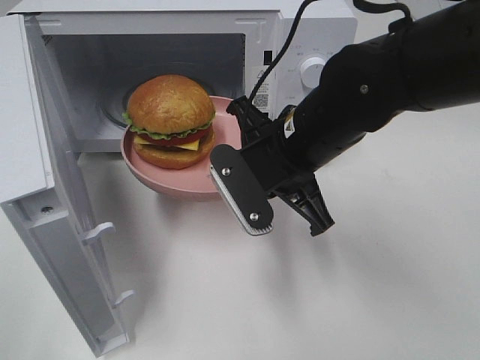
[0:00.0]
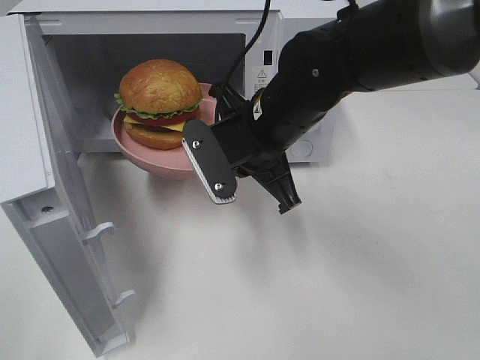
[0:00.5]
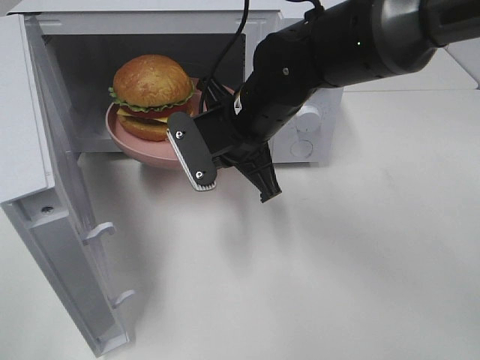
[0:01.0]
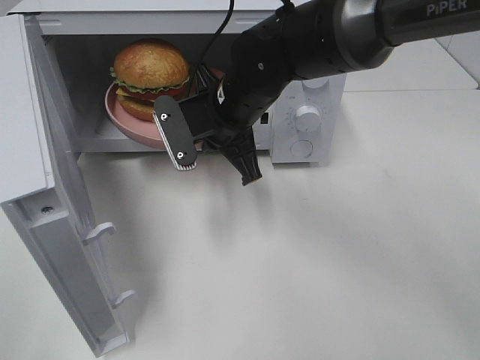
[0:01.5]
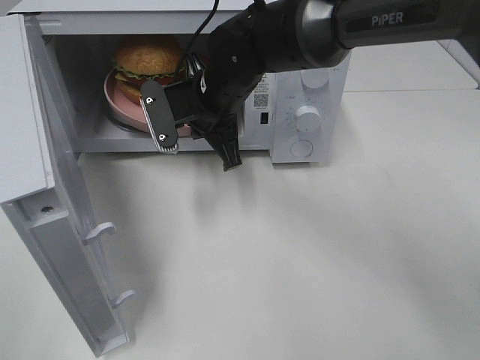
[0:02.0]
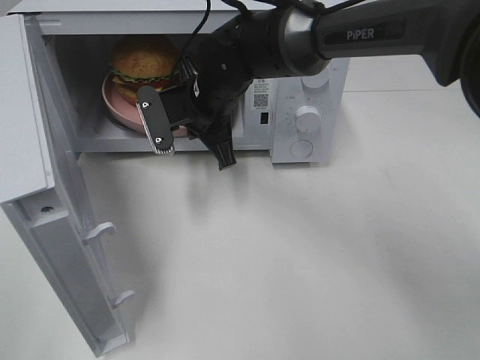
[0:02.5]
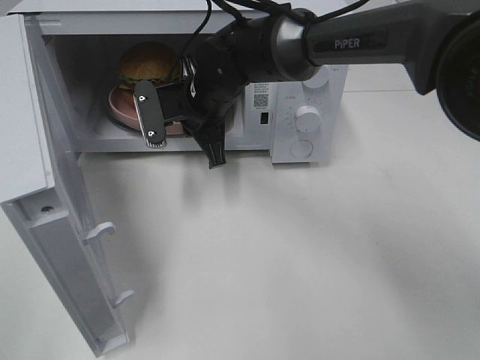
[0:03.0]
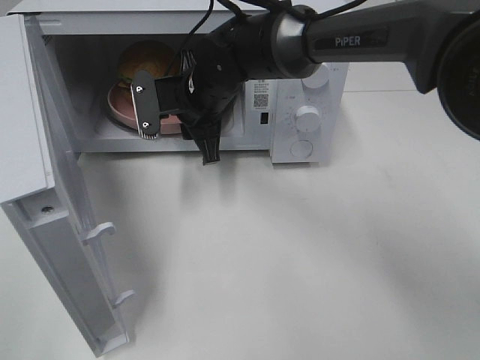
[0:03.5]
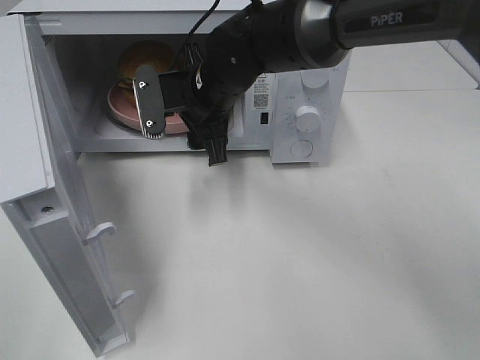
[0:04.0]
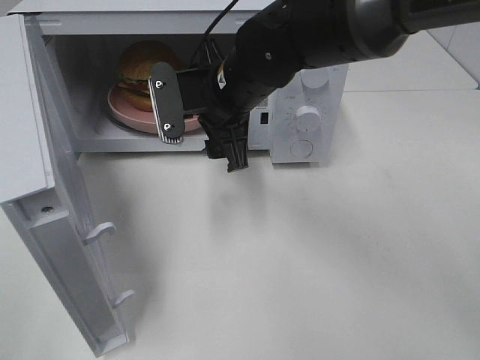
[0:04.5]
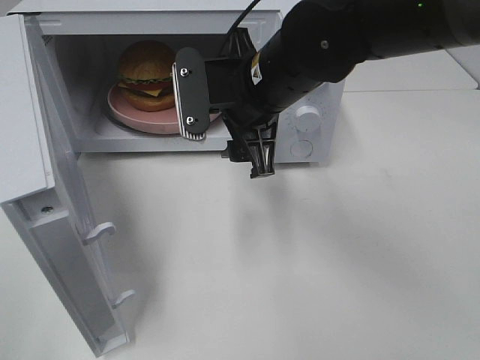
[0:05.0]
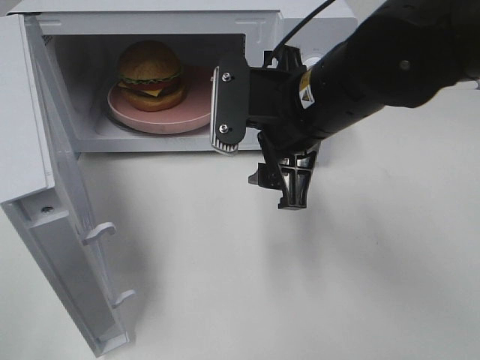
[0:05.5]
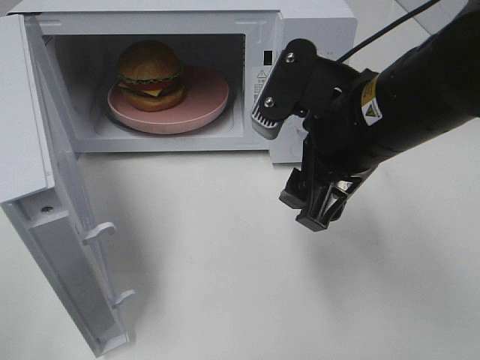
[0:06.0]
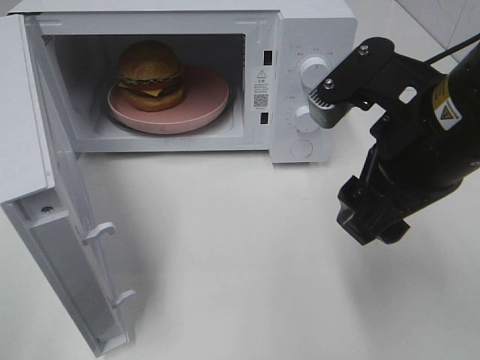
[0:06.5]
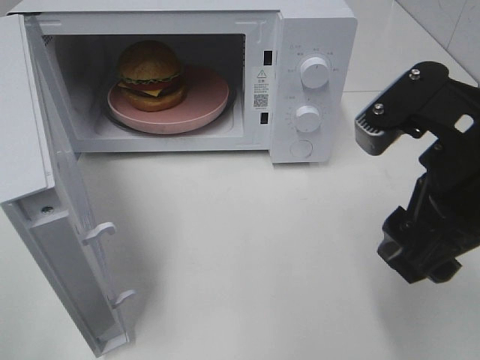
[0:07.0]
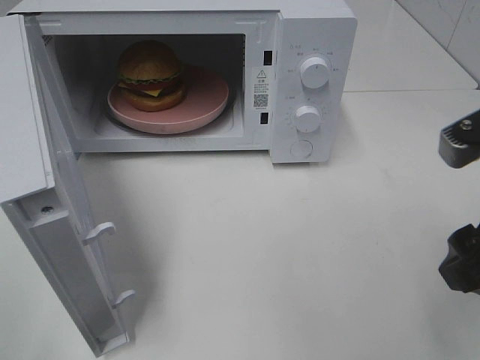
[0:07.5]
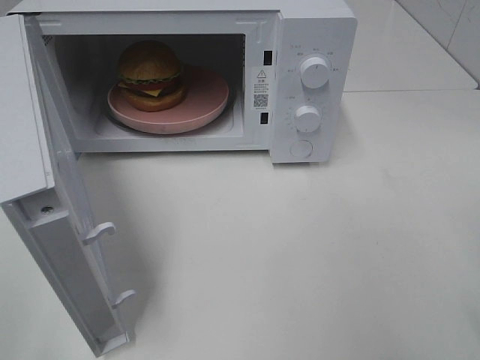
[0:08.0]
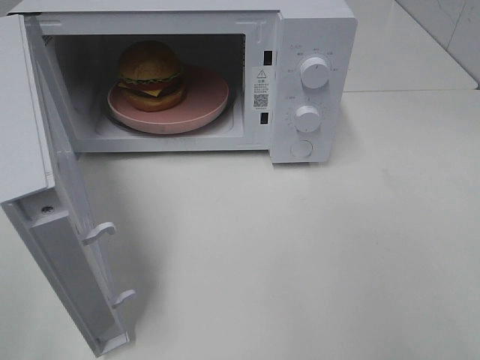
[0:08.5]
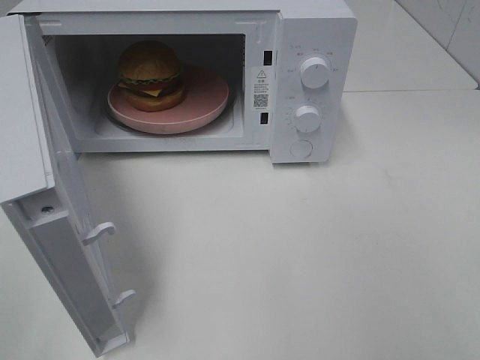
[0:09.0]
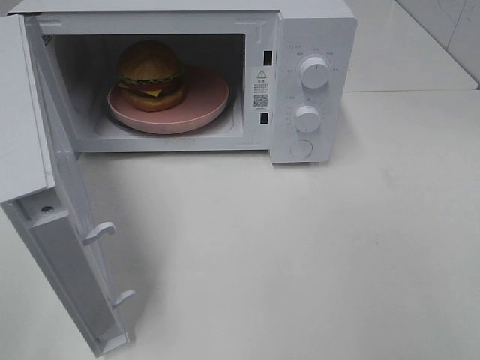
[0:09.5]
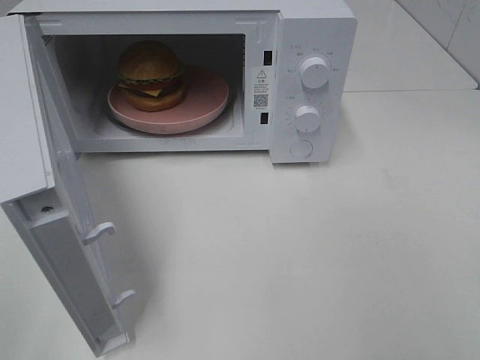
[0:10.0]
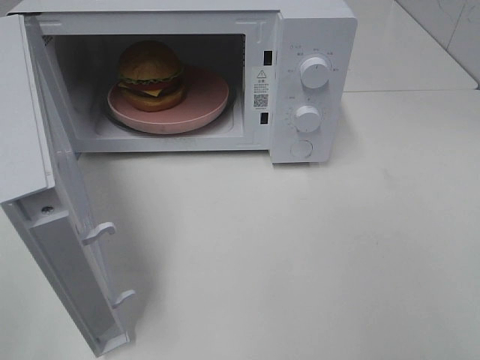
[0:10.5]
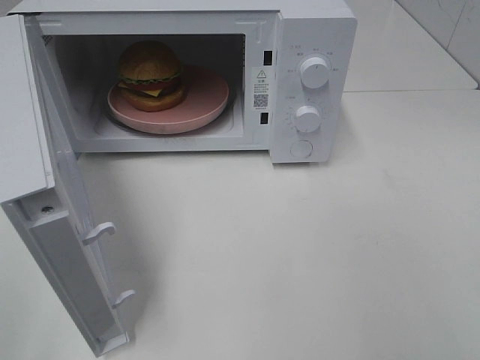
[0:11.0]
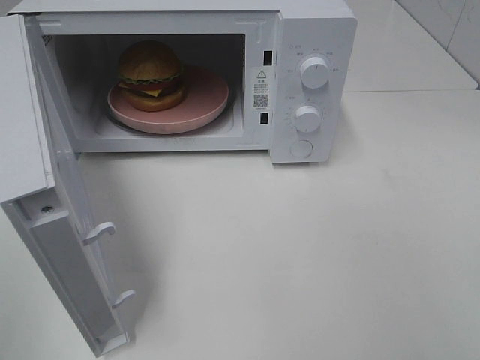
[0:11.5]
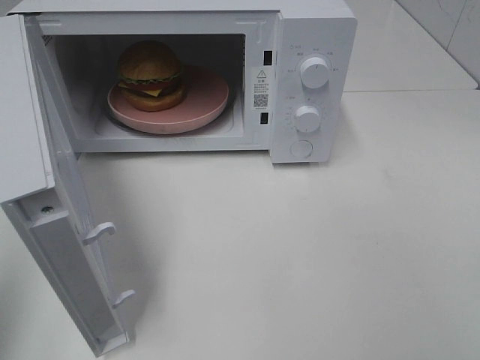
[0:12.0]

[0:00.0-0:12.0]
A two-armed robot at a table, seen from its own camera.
Task of the whole recording: Heat the burger.
Step, 0:00.0 to 0:03.5: Right hand: place the plate in the microwave.
0:00.0 to 0:02.0: The right gripper is displaced forward and to the left by roughly 15 cm.
0:02.0 to 0:04.0: The right gripper opens its fingers.
0:04.0 to 0:06.0: The right gripper heads backward, to the right and upward, covering about 20 cm.
0:06.0 to 0:08.0: The right gripper shifts about 20 cm to the right and backward.

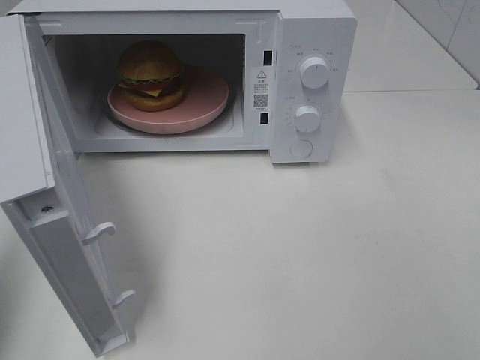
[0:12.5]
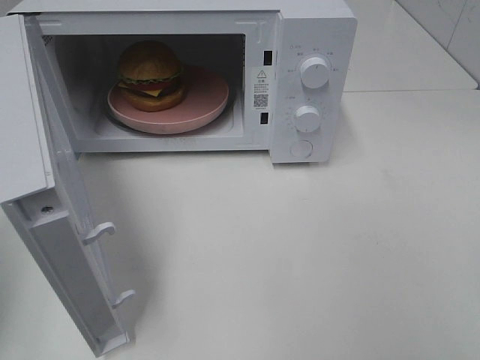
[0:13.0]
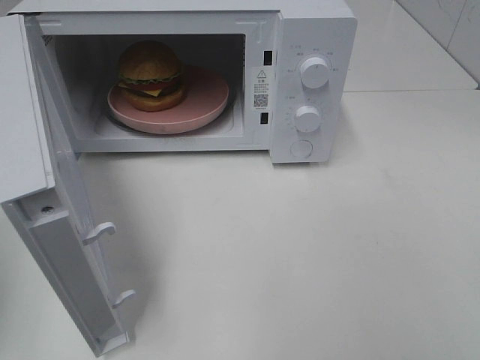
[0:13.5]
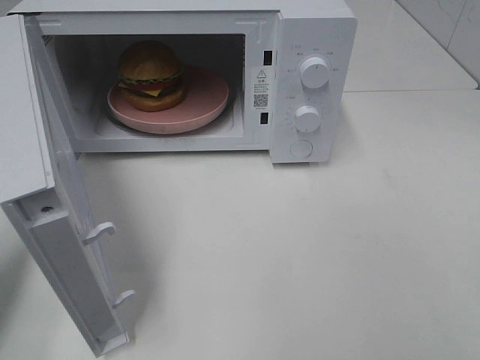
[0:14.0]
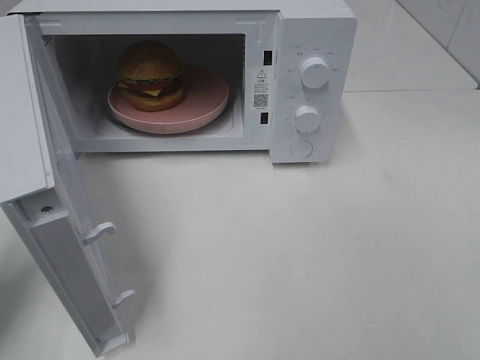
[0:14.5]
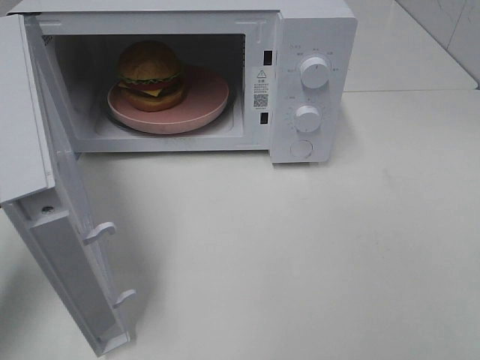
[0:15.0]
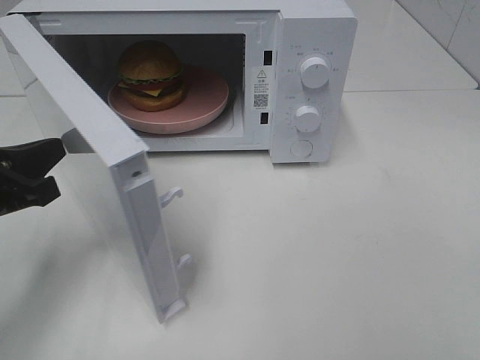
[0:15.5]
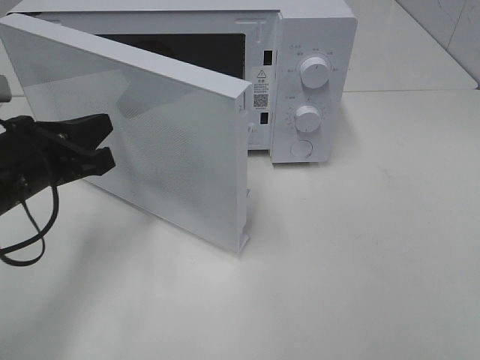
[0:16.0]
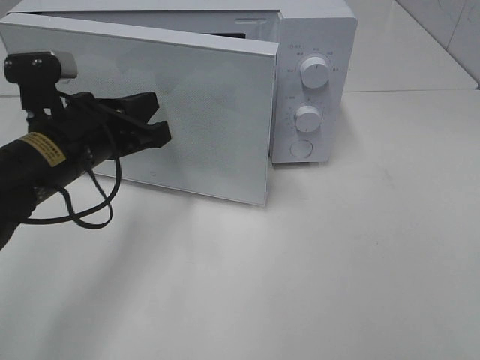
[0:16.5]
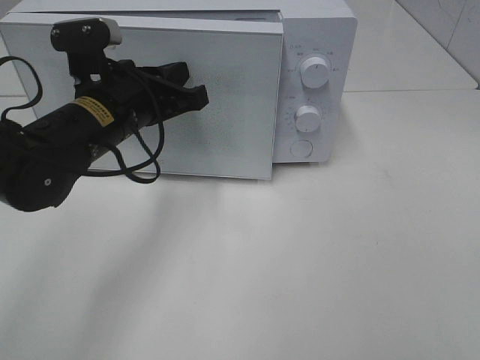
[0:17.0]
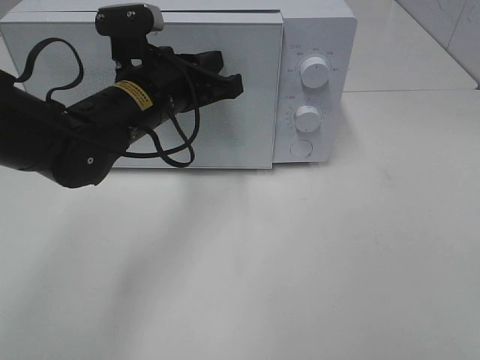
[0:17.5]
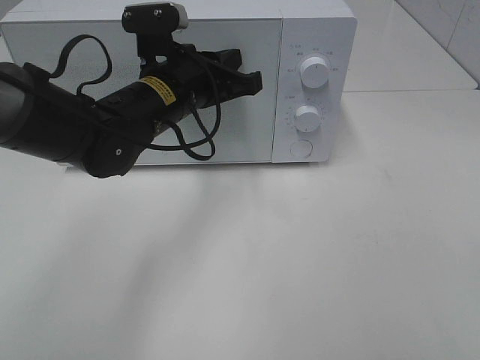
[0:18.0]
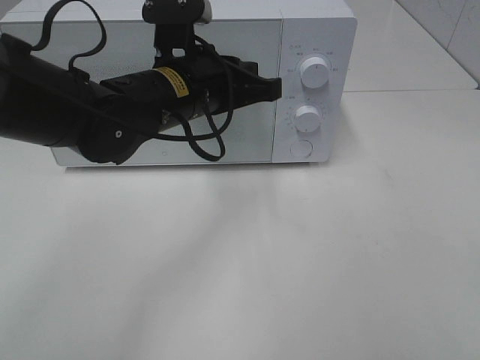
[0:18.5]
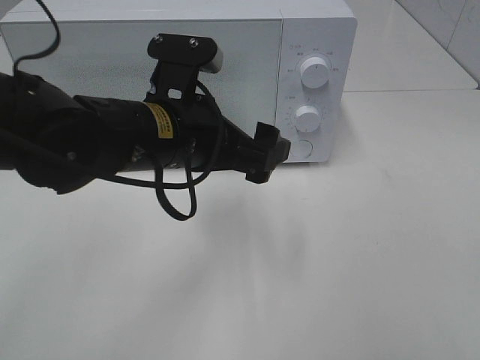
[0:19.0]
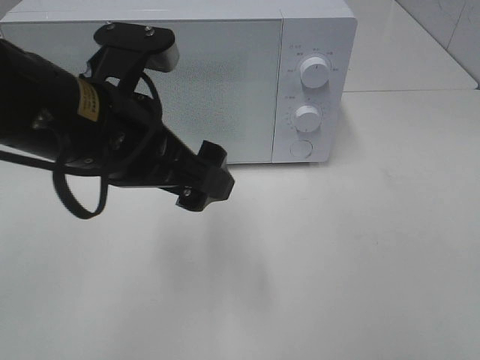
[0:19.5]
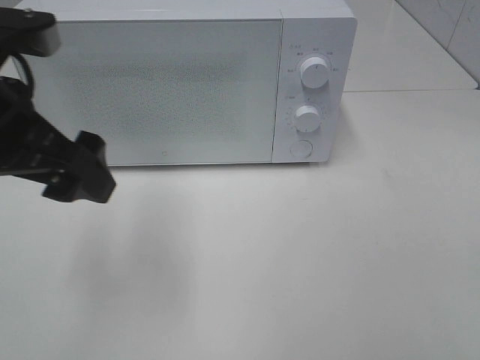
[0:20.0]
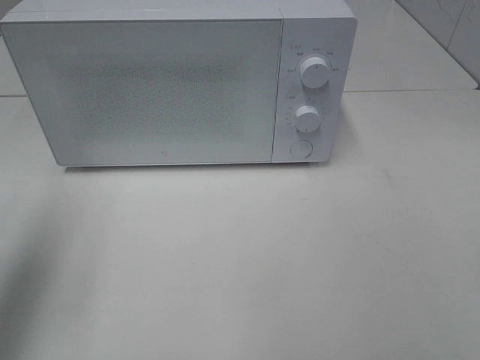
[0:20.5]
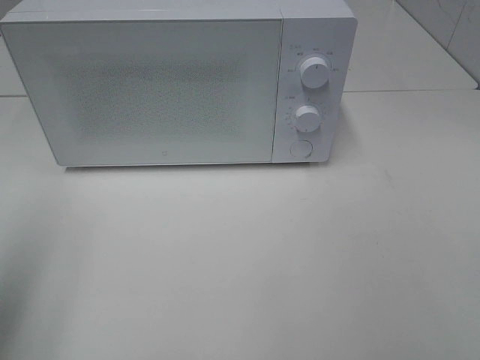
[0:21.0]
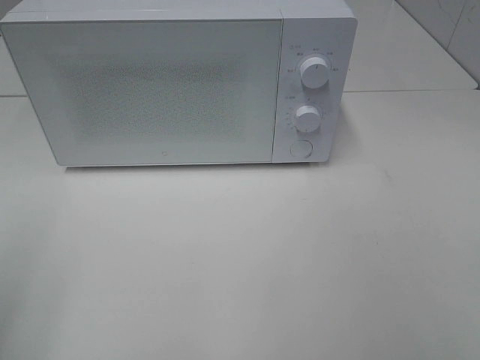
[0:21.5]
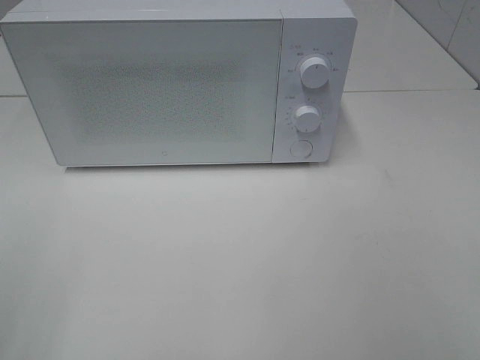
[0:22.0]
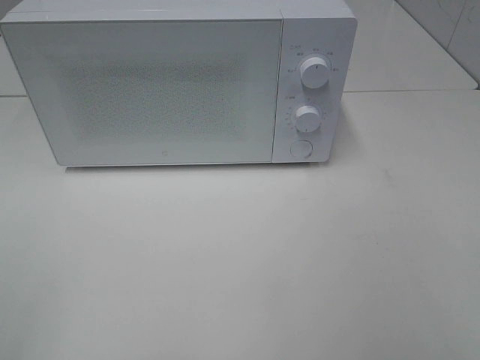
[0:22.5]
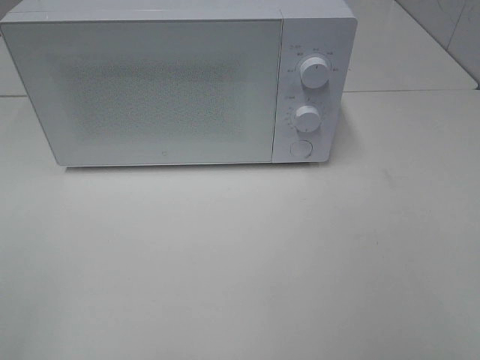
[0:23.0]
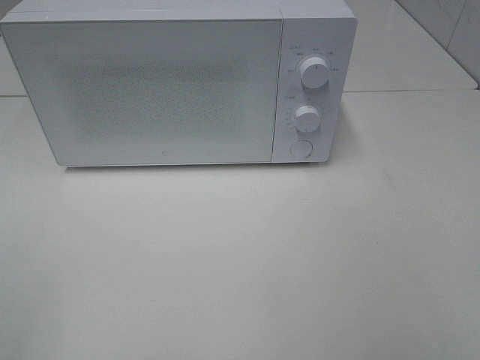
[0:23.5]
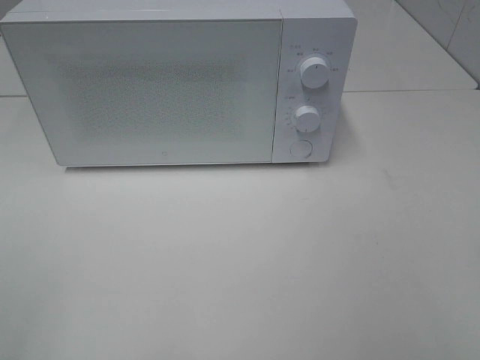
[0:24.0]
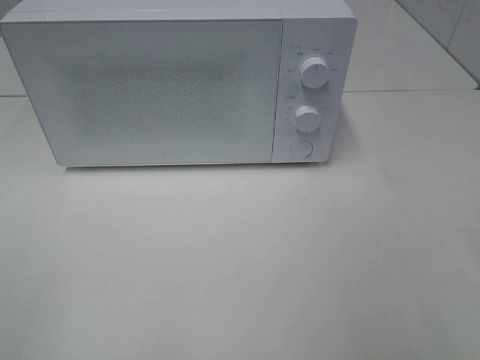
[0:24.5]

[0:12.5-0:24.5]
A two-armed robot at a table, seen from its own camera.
Task of the whole recording: Heat the burger.
Step, 0:12.5 to 0:18.5: Left hand: close the microwave door.
0:12.5 to 0:14.5: The left gripper travels downward and forward by approximately 15 cm.
0:14.5 to 0:16.5: The left gripper travels to the right and forward by some 15 cm.
0:16.5 to 0:18.5: The left gripper is displaced to the right by some 10 cm.
0:18.5 to 0:20.5: The left gripper heads to the left, backward and upward, covering about 30 cm, and opens.
0:20.5 to 0:22.5: The left gripper is displaced backward by roughly 20 cm.

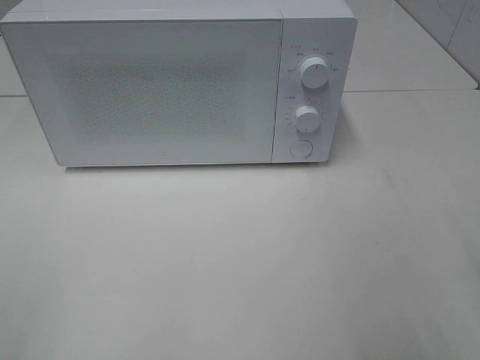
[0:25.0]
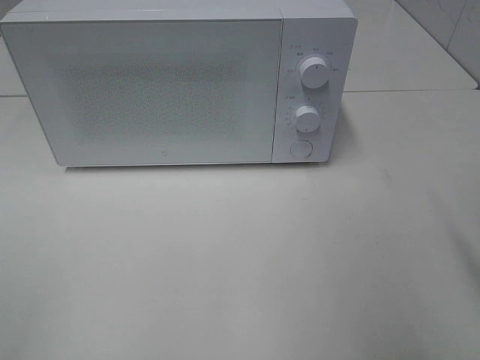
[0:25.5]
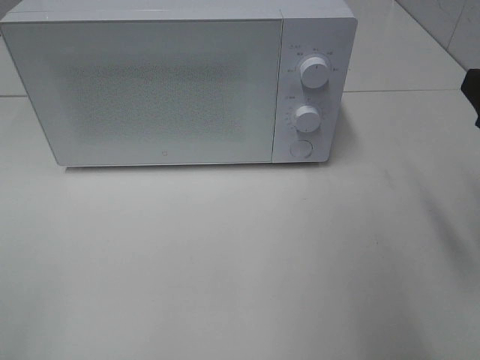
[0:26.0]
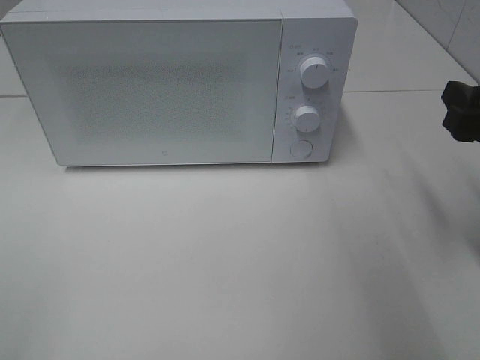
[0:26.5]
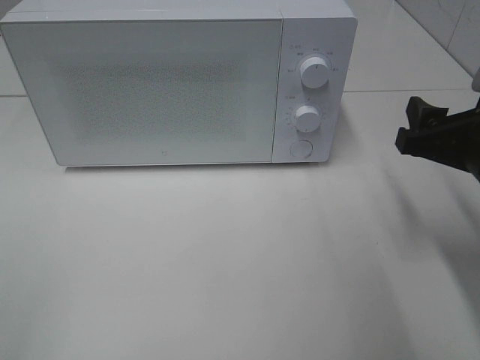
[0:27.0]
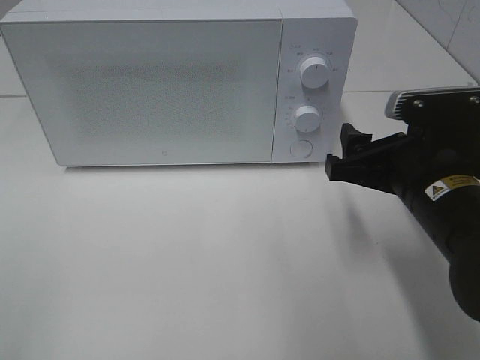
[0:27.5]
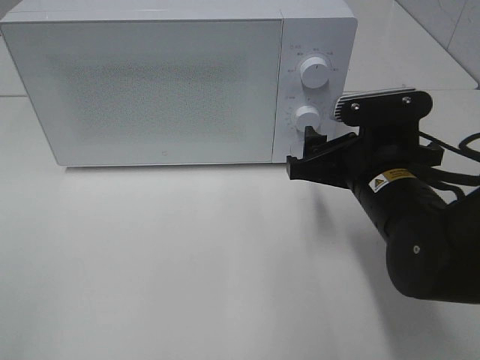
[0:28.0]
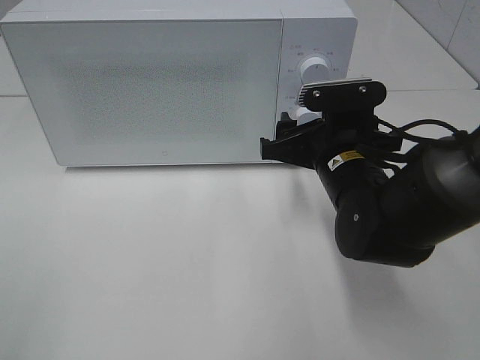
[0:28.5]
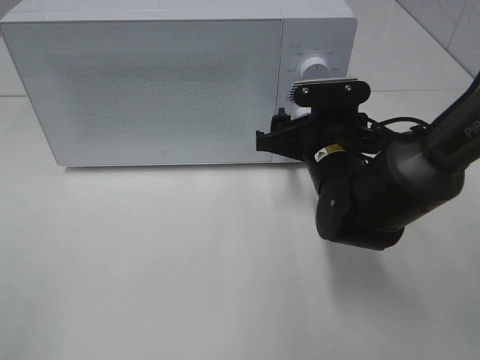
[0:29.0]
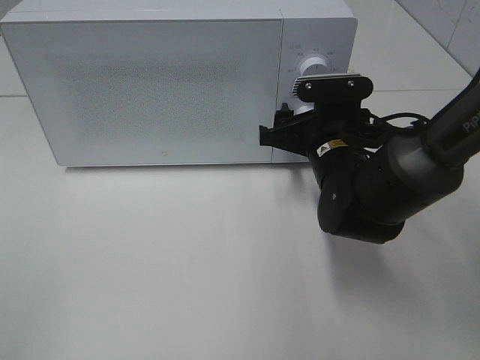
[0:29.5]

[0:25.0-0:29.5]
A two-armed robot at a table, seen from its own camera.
Task of the whole recording: Heat the burger.
0:25.0 to 0:27.0: The right gripper goes about 15 cm forward and downward.
0:27.0 to 0:29.5: The right gripper moves to the left, forward and downward, some 15 cm.
